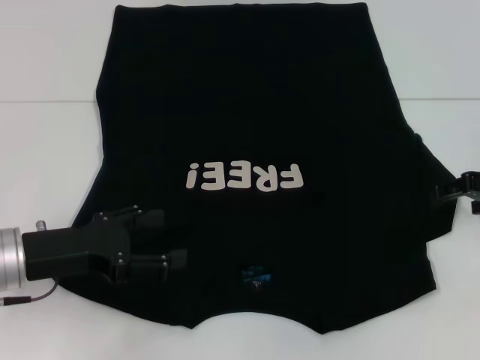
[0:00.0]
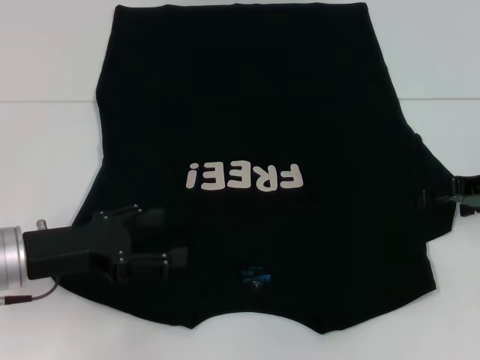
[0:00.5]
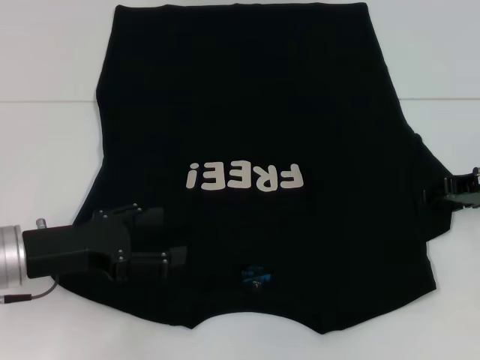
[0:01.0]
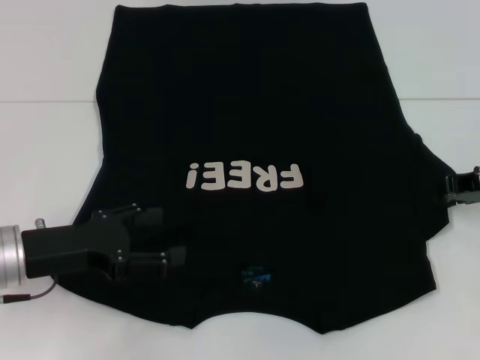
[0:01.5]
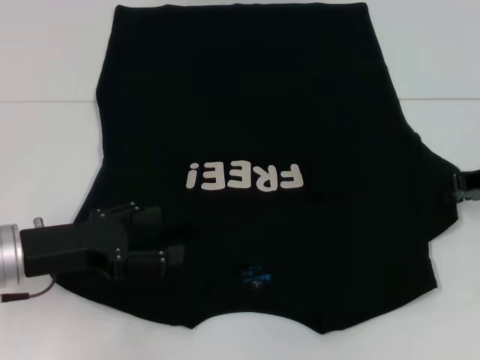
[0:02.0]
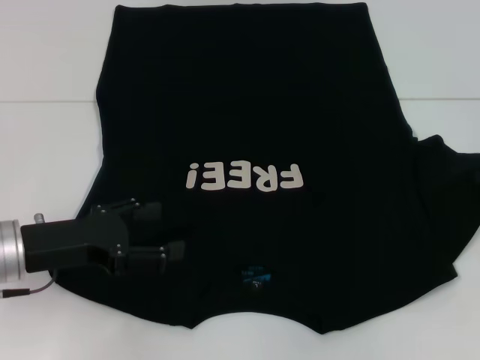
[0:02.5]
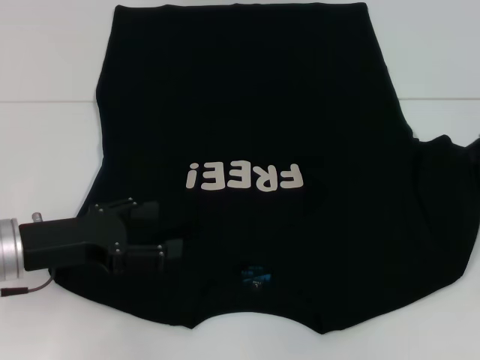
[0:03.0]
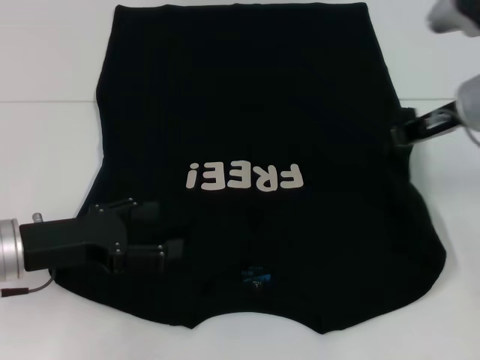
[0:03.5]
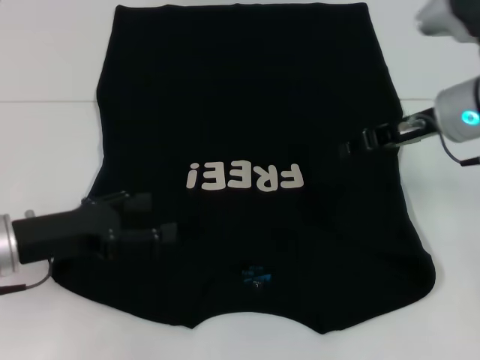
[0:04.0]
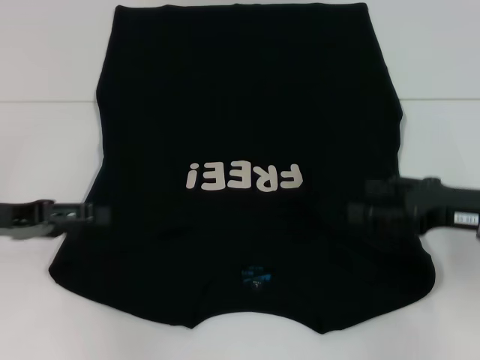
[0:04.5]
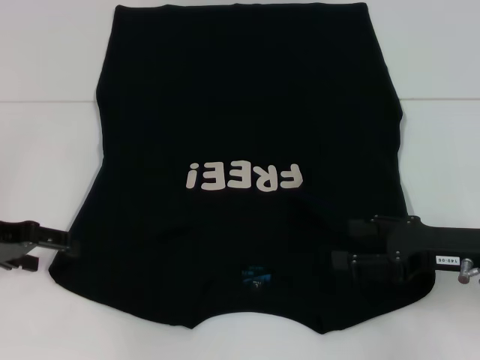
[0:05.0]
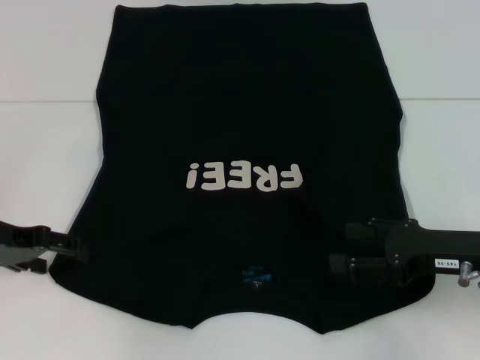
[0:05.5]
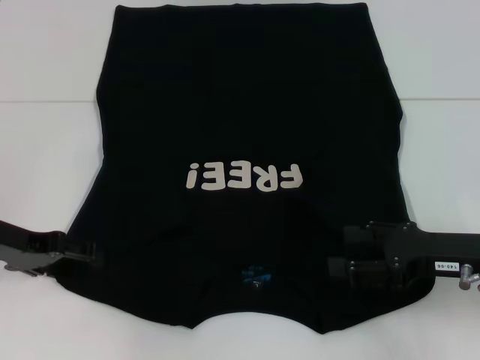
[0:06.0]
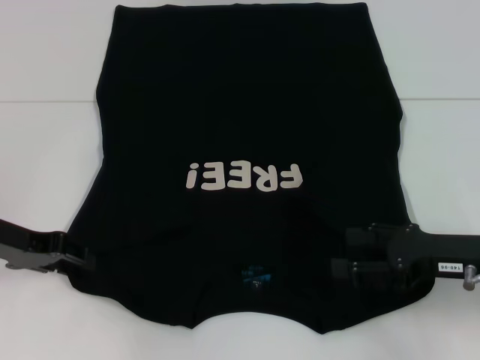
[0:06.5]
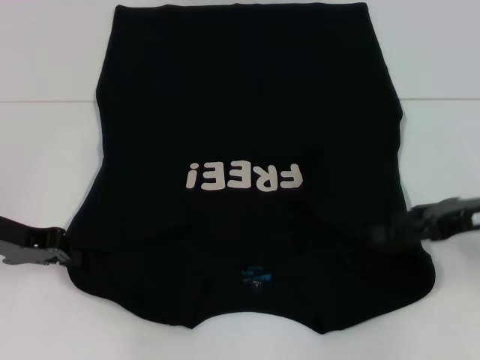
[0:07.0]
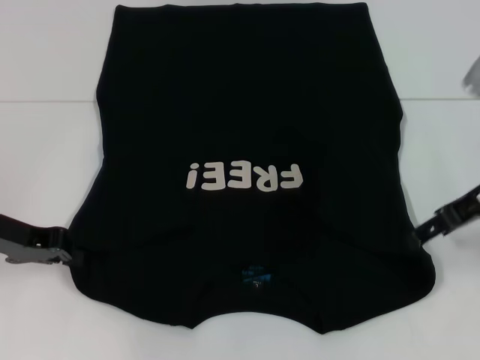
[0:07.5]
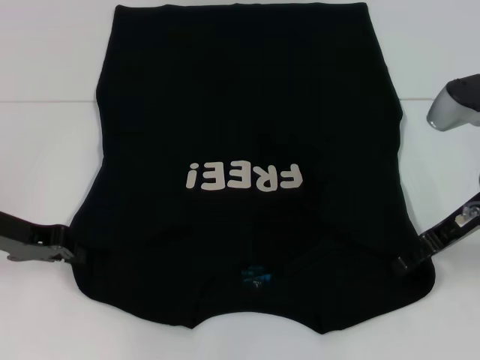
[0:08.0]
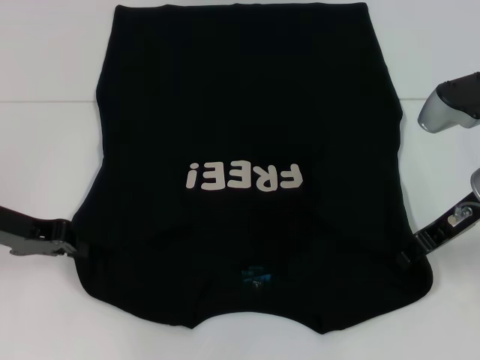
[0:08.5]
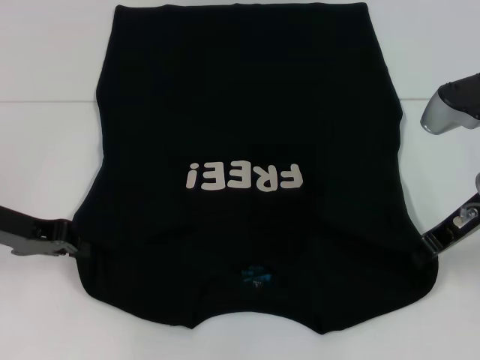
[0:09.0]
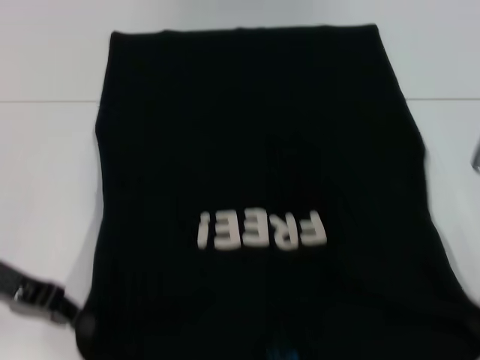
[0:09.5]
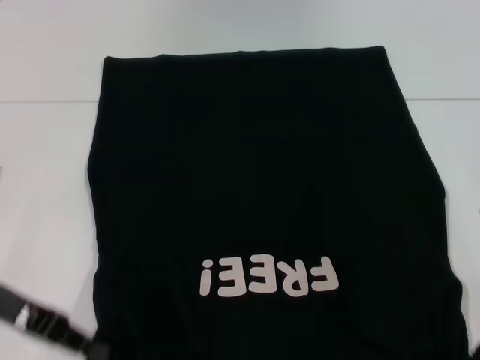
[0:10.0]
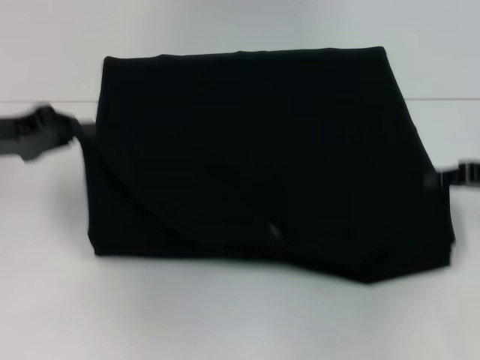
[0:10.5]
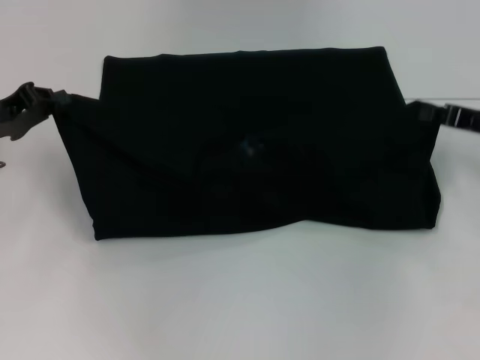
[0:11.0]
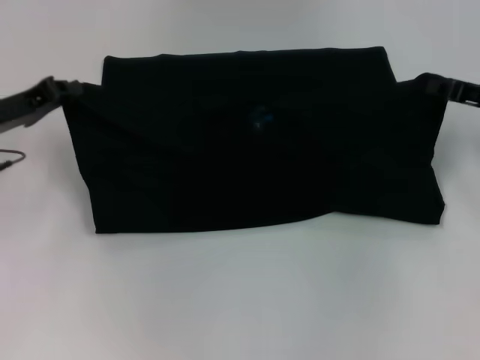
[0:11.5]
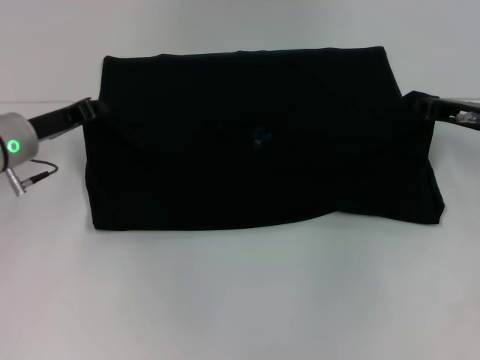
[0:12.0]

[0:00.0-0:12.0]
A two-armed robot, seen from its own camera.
Step, 0:00.0 to 0:03.5: Fold the bottom right sleeve with your right hand.
Step, 0:04.0 to 0:07.0: Grab the bottom left corner with your left hand.
Step, 0:07.5 to 0:09.0: Grab the bottom right corner with your right hand.
0:00.0 to 0:02.0: The right gripper closes up.
0:02.0 to 0:04.0: The right gripper travels to the left by approximately 10 cm.
0:04.0 to 0:06.0: The left gripper moves about 5 cm, while the right gripper shifts some 15 cm backward and downward, and opens.
0:06.0 to 0:08.0: The left gripper closes. The right gripper is displaced forward and upward by some 10 cm.
0:08.0 to 0:10.0: Both grippers move backward, about 5 cm. The right gripper closes its fingers.
0:10.0 to 0:12.0: The two grippers go roughly 10 cm forward.

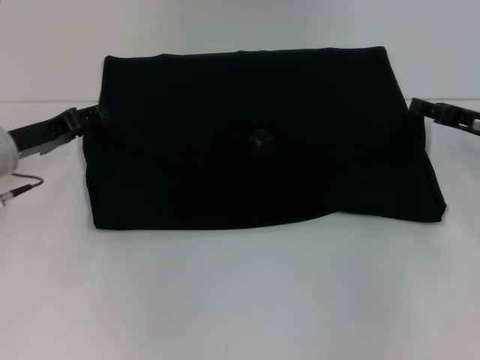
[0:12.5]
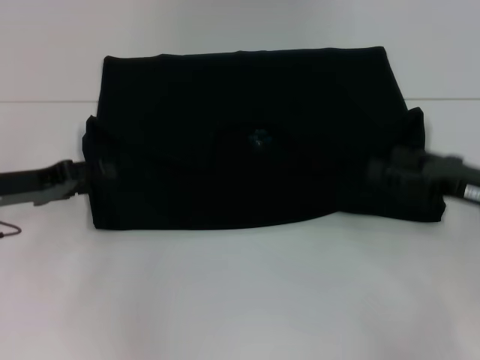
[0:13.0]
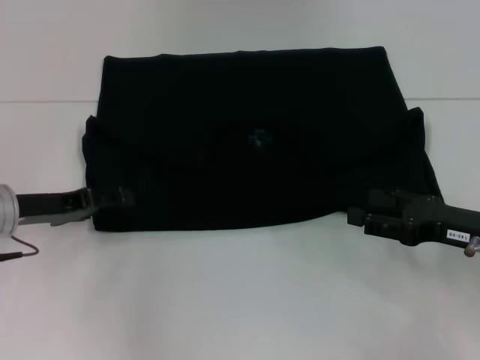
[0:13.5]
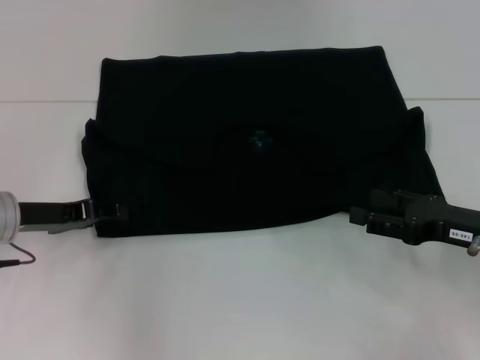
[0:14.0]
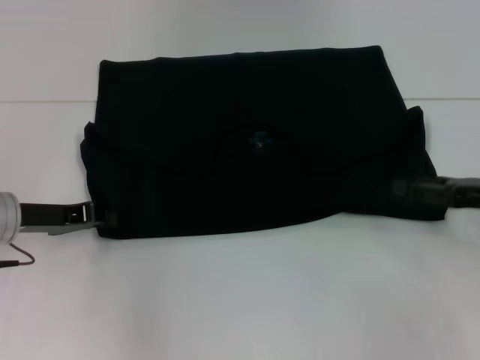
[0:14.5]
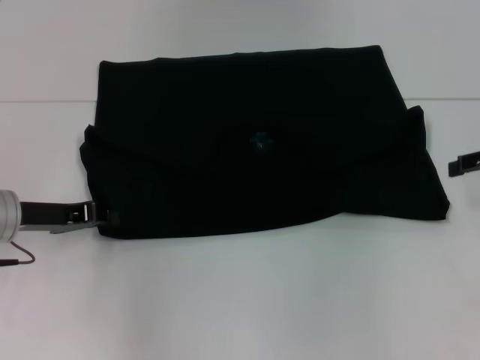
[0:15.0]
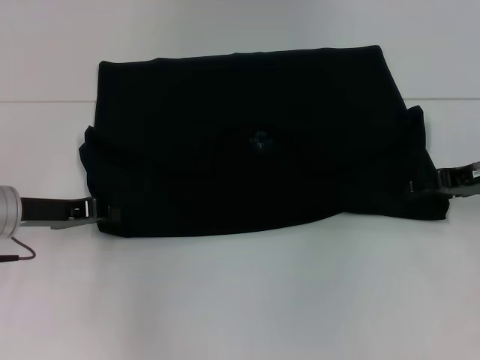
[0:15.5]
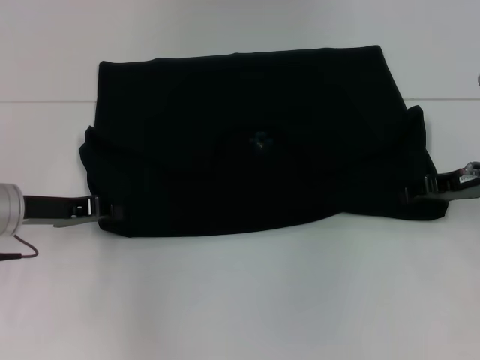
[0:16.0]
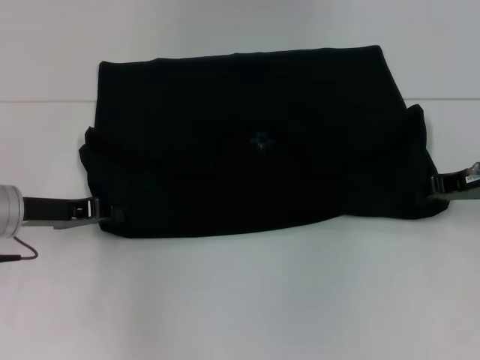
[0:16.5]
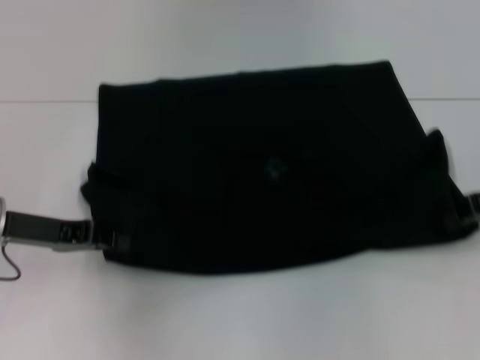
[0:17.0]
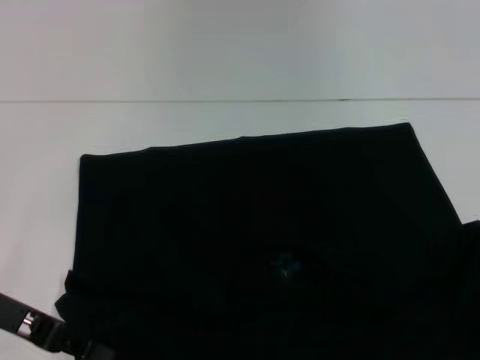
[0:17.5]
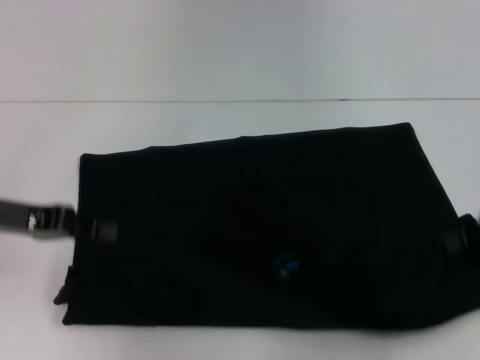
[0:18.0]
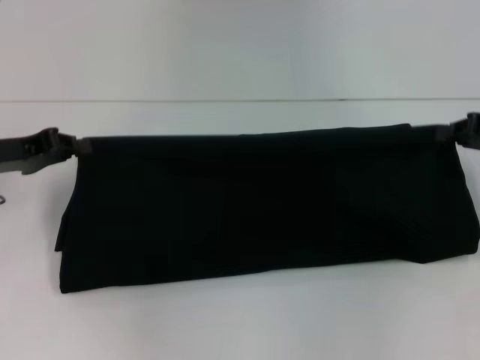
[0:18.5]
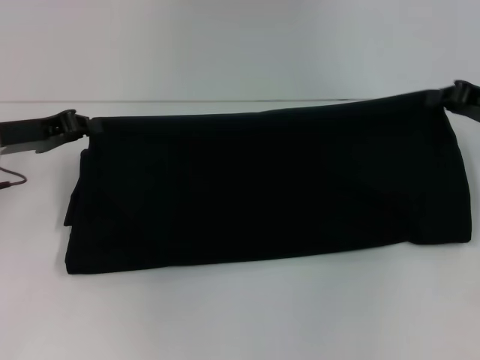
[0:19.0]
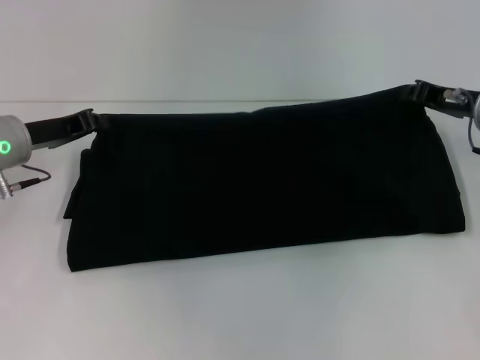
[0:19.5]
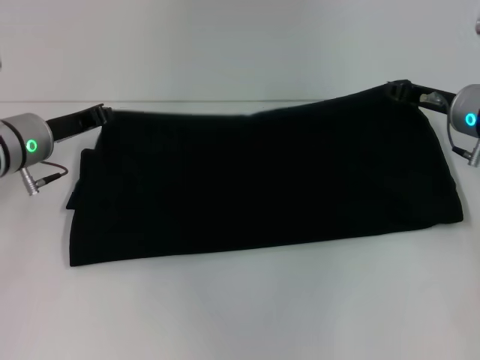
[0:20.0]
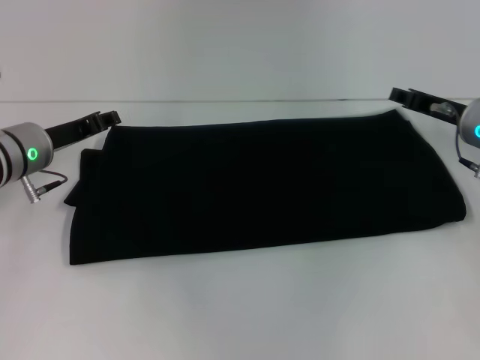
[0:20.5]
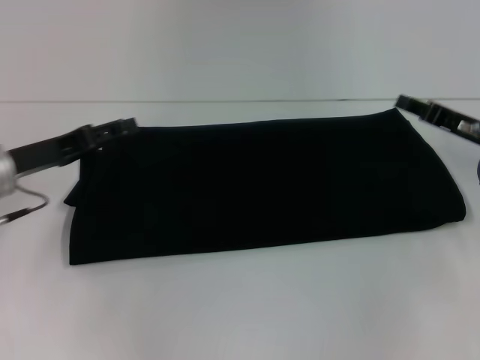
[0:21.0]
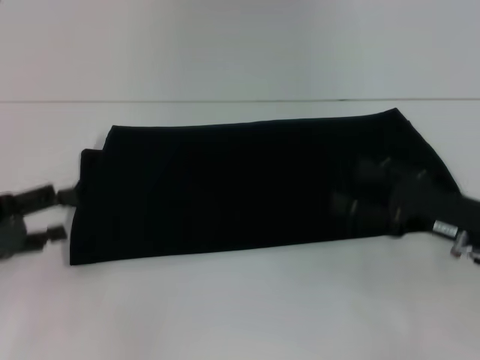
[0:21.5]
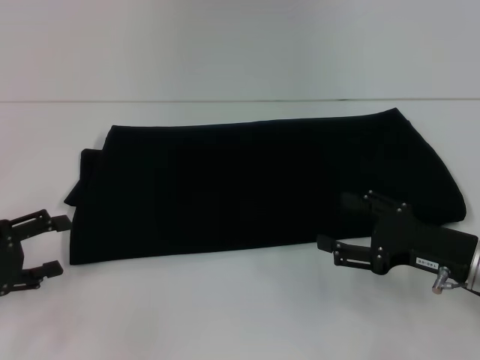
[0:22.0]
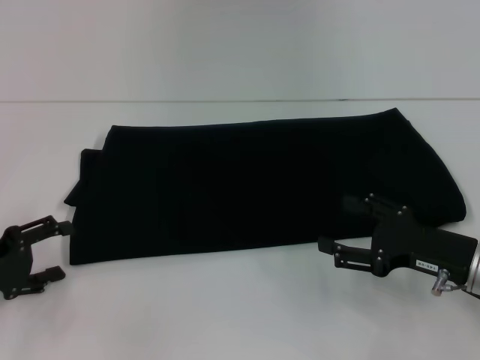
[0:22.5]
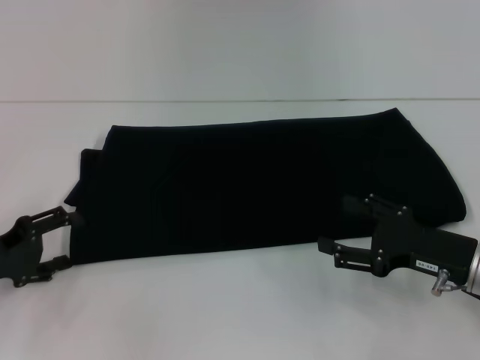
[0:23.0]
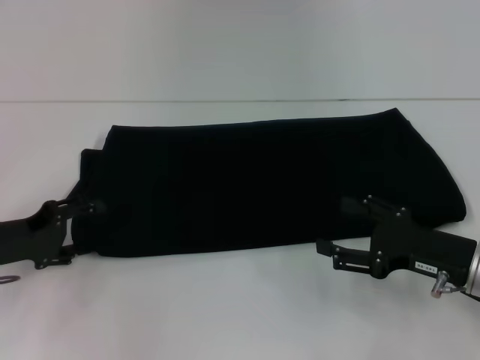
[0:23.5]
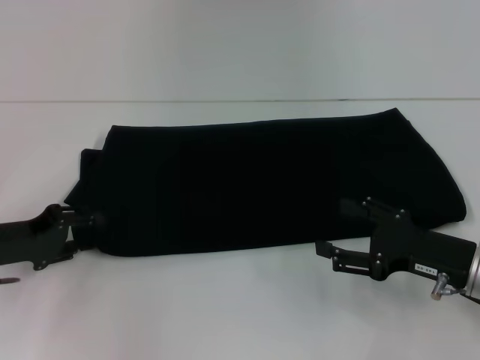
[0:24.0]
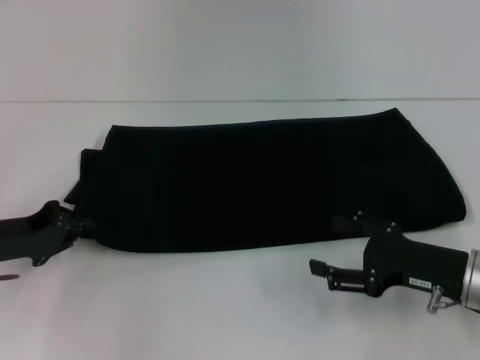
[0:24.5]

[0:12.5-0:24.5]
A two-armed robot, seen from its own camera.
Step, 0:13.0 to 0:17.0: Pull the clothes with your left hand.
Step, 0:13.0 to 0:17.0: Pull the clothes with your right hand.
Step, 0:17.5 to 0:20.5: Fold the clothes with your right hand.
0:12.5 to 0:14.5: The right gripper shifts about 5 cm backward, and opens up. Meanwhile the left gripper opens, then closes again.
0:14.5 to 0:16.5: The right gripper shifts about 5 cm forward, and closes its fingers.
0:16.5 to 0:18.5: The right gripper moves about 10 cm backward and comes back, while the left gripper goes backward and returns, some 5 cm each way.
0:18.5 to 0:20.5: The right gripper heads to the left, covering approximately 10 cm, and opens up. The left gripper travels to the right by about 5 cm, and opens.
0:20.5 to 0:22.5: The right gripper goes approximately 15 cm backward, and opens up, while the left gripper travels backward and to the left by some 15 cm, and opens.
0:22.5 to 0:24.5: The left gripper shifts by about 5 cm, and closes up.

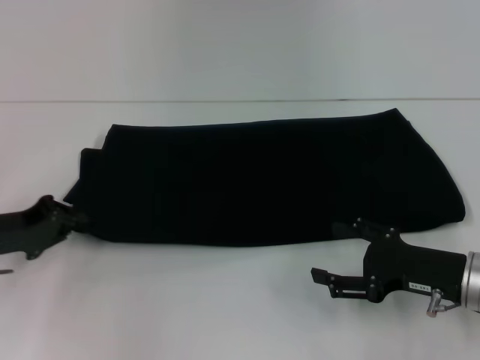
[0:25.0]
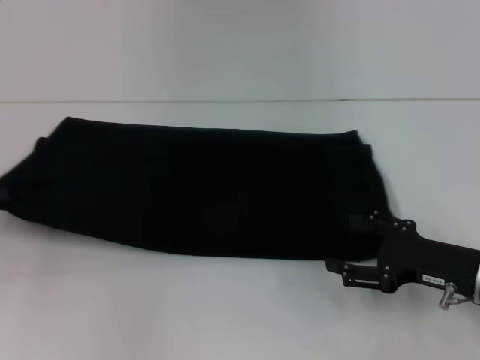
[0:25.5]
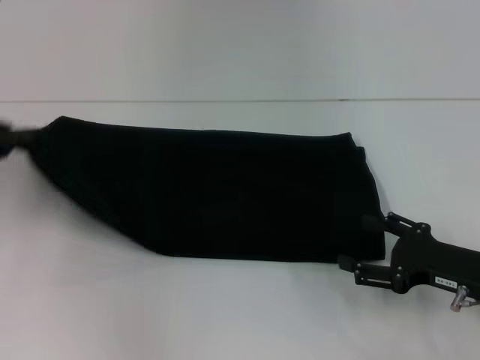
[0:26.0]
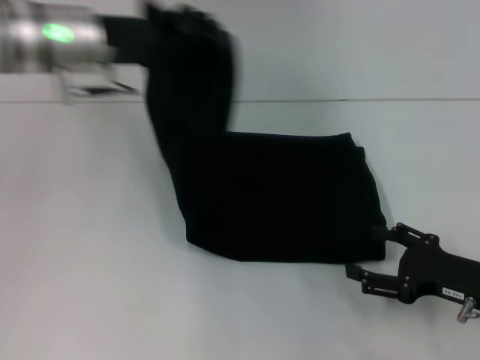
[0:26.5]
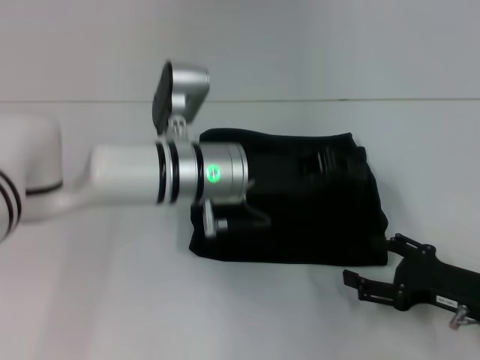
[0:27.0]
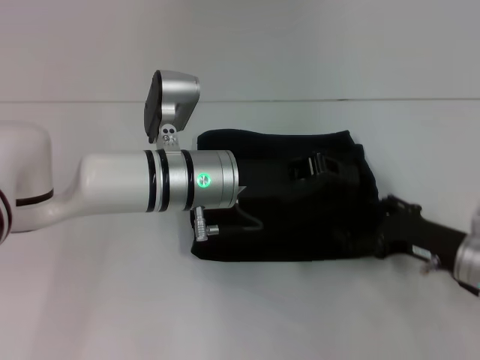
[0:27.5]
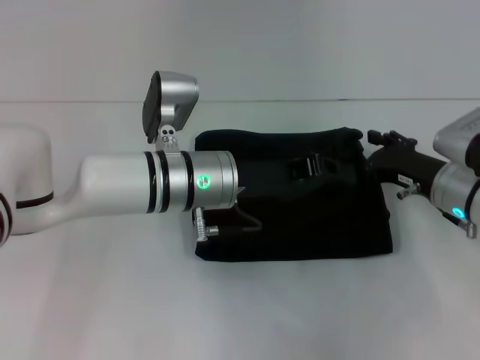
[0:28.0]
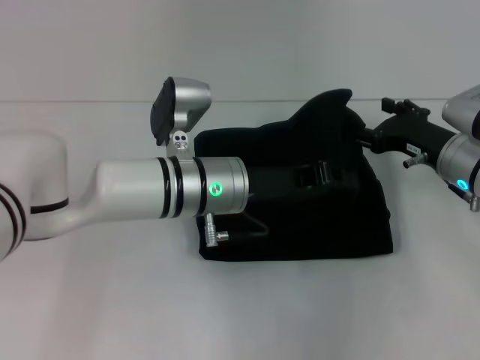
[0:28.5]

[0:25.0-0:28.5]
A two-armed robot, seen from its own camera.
Step, 0:25.0 to 0:27.5: Fold the clothes with your left hand.
0:25.0 to 0:27.0: The left gripper is displaced to the right by about 25 cm.
0:27.0 to 0:28.5: The right gripper goes about 15 cm forward and upward.
